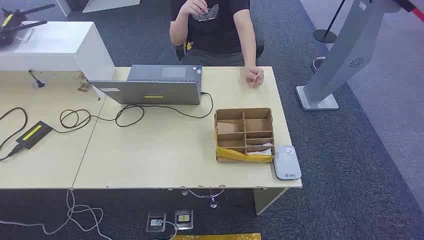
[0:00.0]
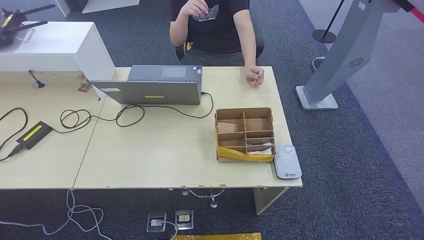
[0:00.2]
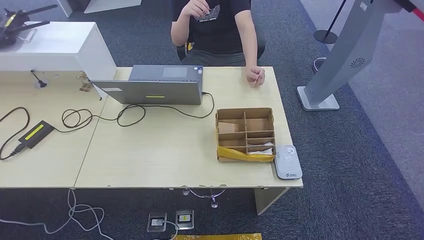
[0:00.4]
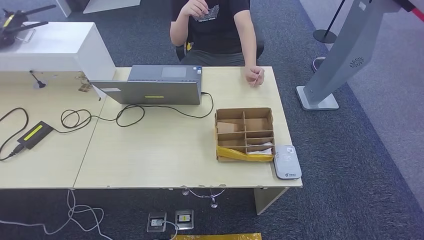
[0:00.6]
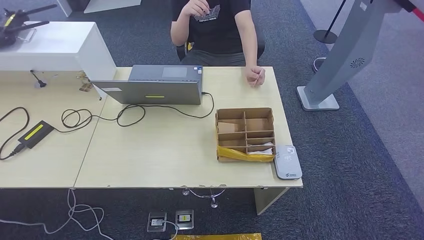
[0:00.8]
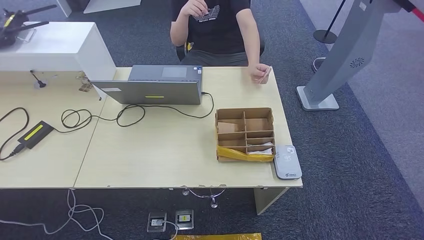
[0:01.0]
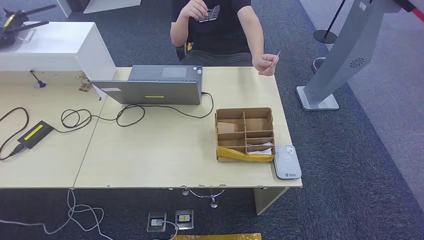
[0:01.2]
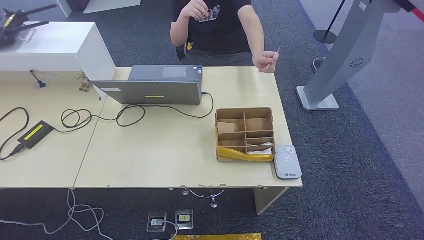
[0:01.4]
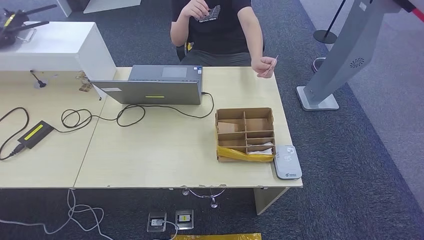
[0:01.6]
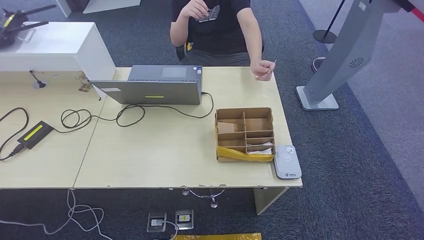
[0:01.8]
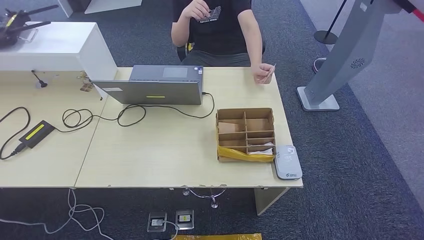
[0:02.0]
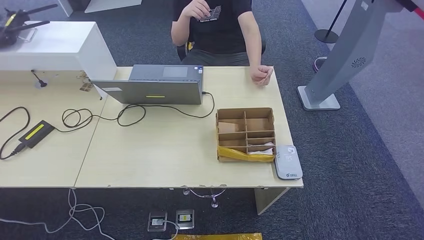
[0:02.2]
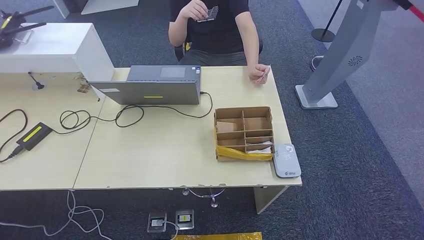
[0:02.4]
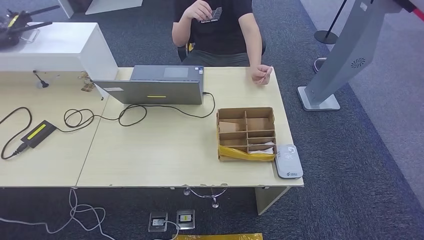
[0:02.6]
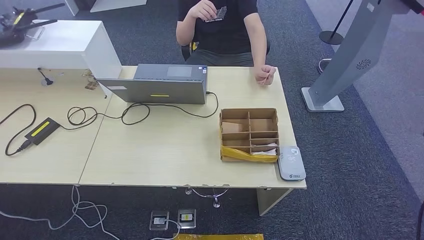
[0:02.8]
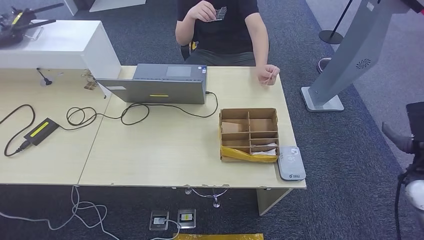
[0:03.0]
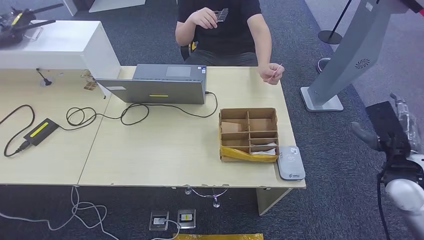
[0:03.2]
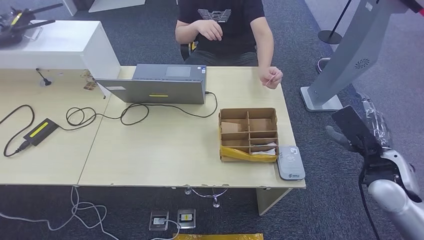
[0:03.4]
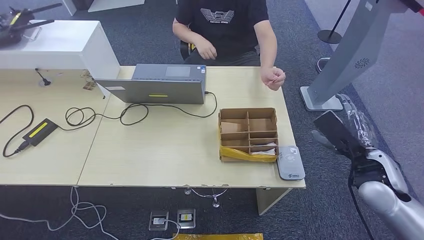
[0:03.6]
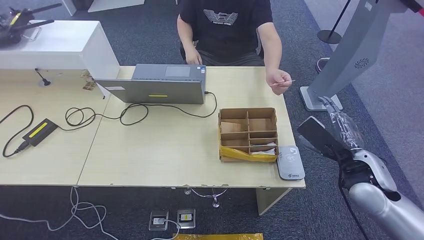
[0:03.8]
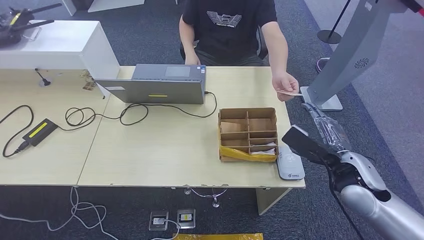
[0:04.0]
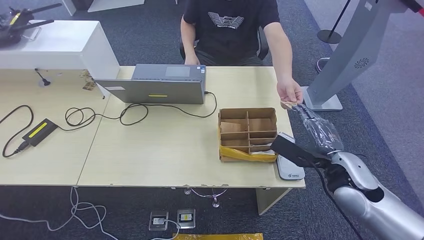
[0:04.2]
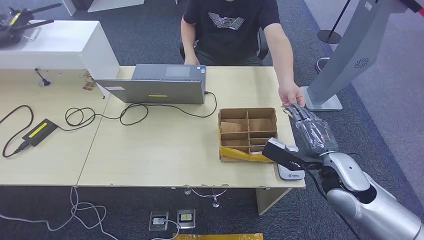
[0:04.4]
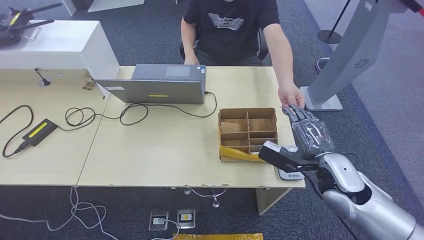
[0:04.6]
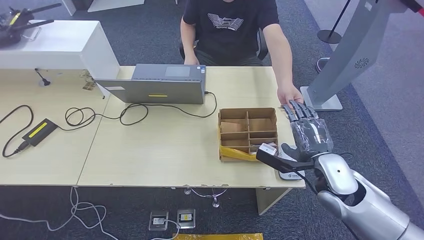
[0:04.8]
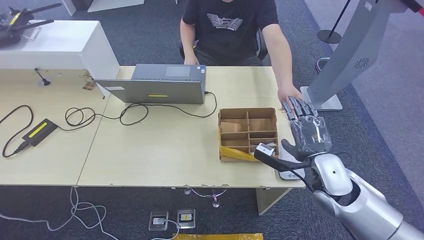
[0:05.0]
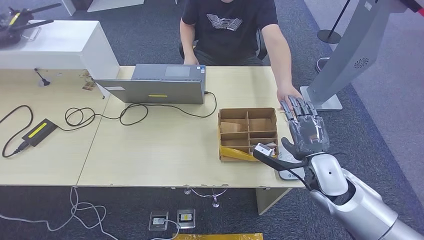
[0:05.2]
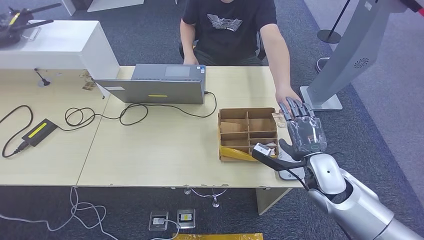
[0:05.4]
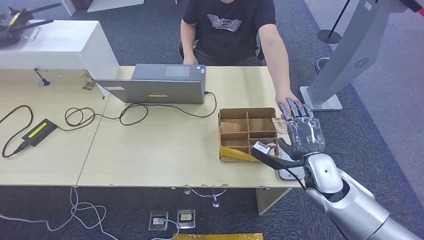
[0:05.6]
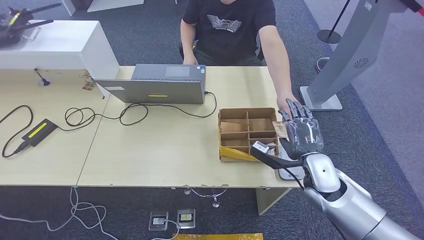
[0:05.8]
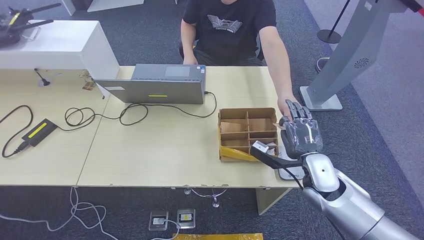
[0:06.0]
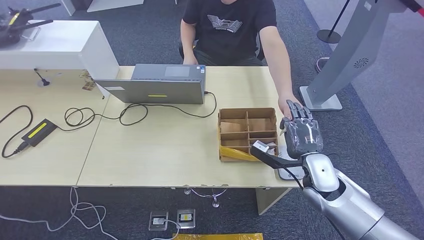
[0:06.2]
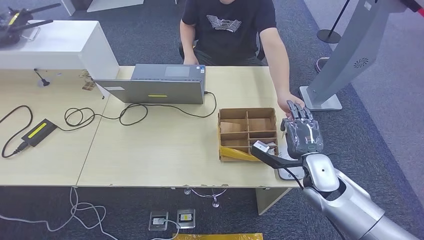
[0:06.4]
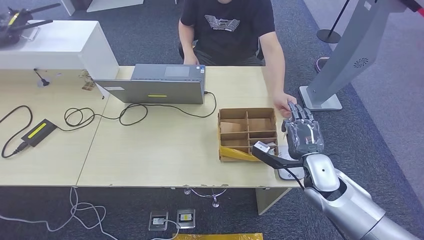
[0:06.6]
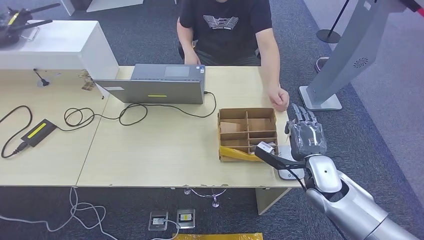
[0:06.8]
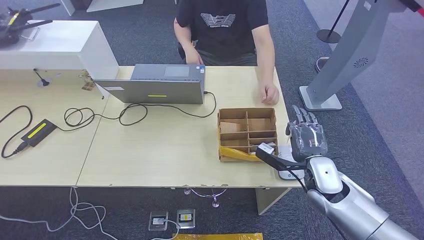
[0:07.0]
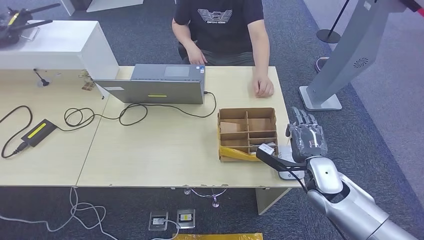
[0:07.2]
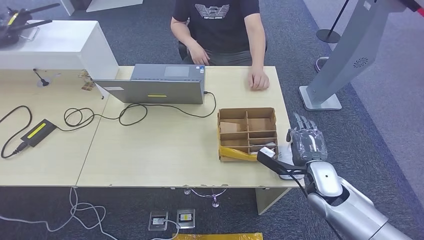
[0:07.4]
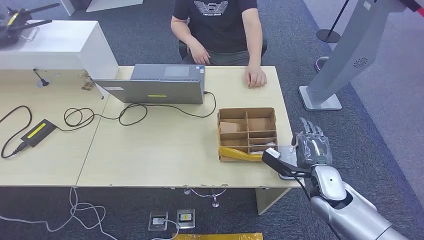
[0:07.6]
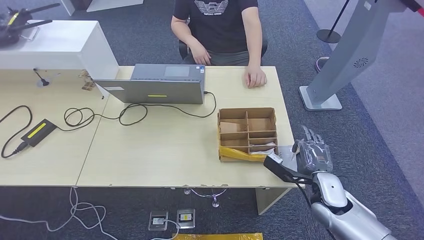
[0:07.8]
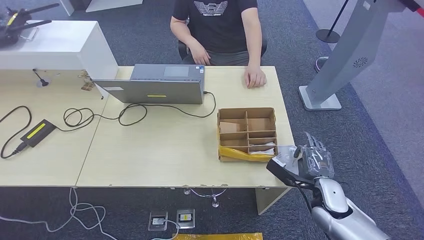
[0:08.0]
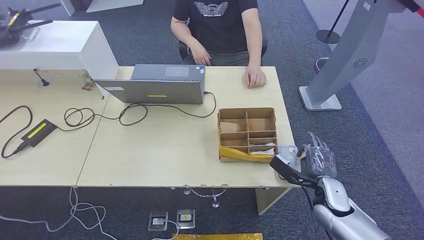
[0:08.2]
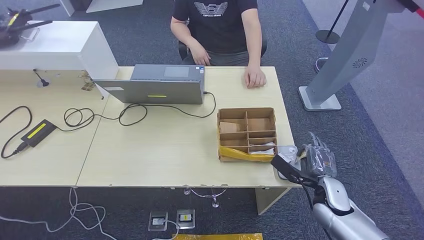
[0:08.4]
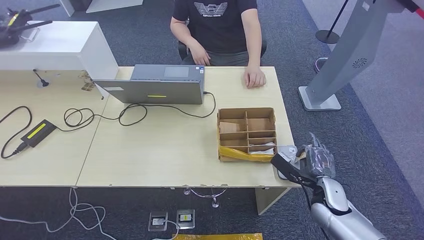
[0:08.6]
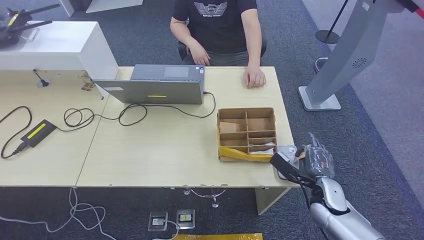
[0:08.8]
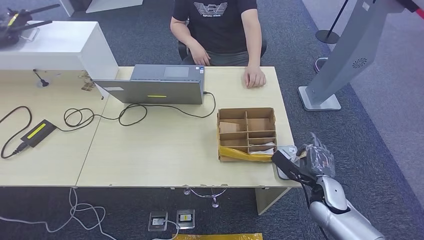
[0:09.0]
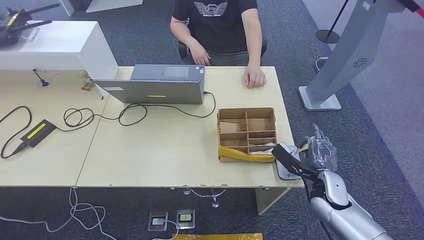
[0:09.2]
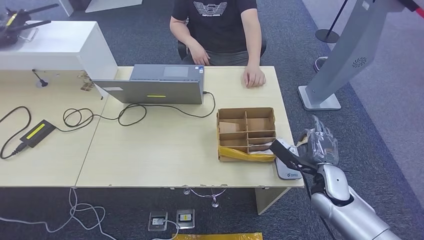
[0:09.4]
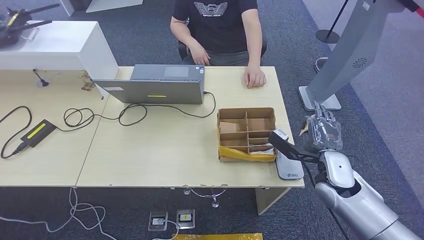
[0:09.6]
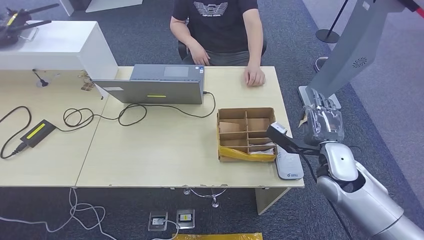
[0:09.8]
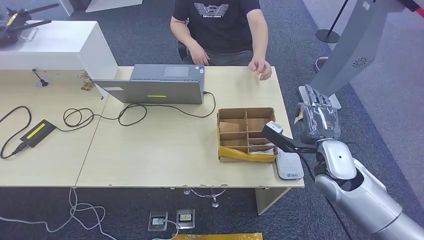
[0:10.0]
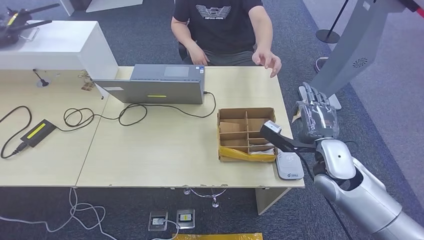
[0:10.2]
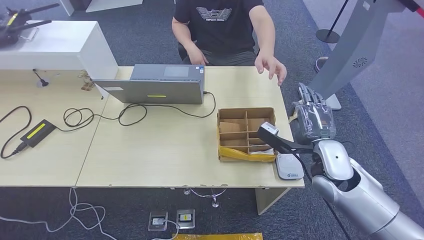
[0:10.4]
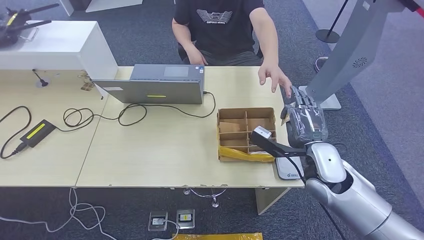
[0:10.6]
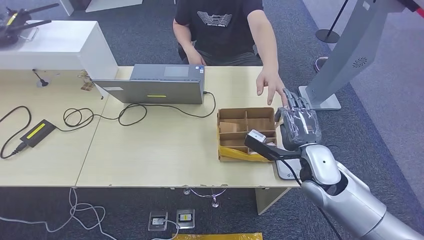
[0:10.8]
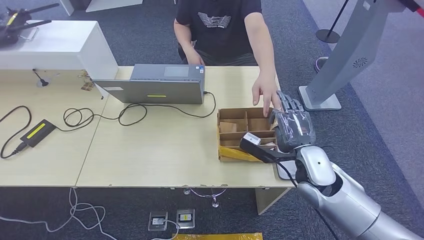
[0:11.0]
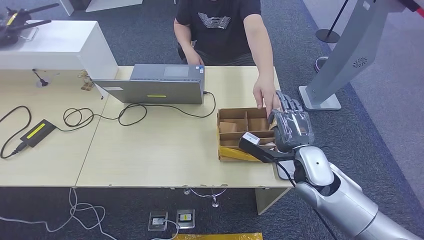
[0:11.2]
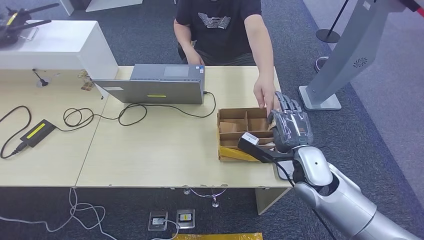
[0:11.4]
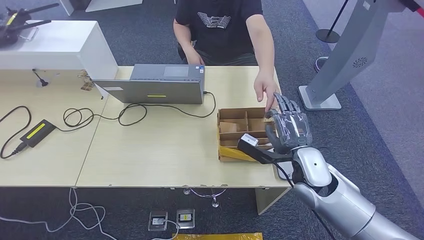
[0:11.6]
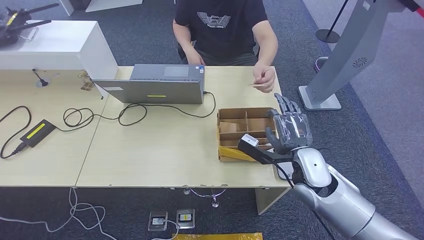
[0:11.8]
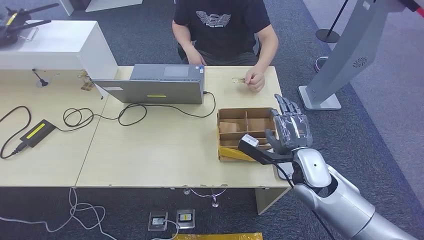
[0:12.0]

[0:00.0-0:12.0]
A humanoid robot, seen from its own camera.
Step, 0:00.0 to 0:06.8: Take the ID card from the person's hand.
Step, 0:07.0 to 0:09.0: Place the ID card on the card reader.
Step, 0:09.2 to 0:11.8: Hand the ID card to the person.
0:01.6 to 0:03.0: The right hand travels upward and forward by about 35 cm.
0:03.0 to 0:04.4: The right hand travels to the left by about 20 cm.
0:04.4 to 0:06.0: The right hand travels downward by about 5 cm.
0:06.0 to 0:07.6: The hands move only a little.
0:07.6 to 0:09.0: The right hand ends up about 5 cm from where it was.
0:09.0 to 0:10.4: The right hand travels upward by approximately 15 cm.
0:10.4 to 0:12.0: The hands make only small movements.

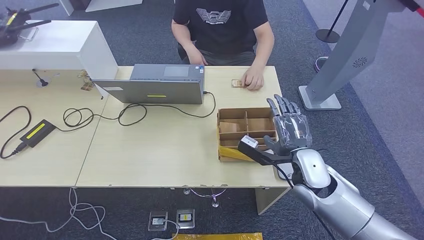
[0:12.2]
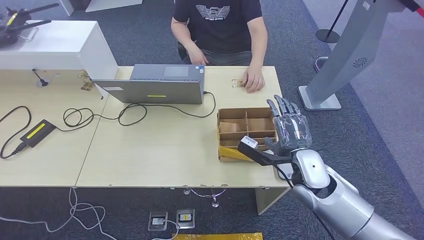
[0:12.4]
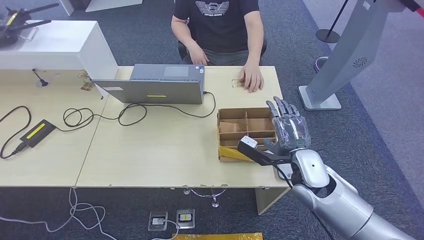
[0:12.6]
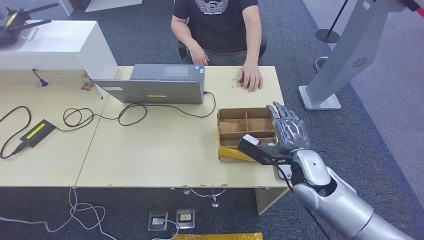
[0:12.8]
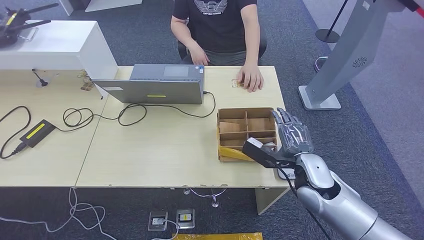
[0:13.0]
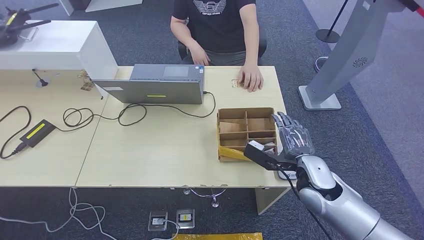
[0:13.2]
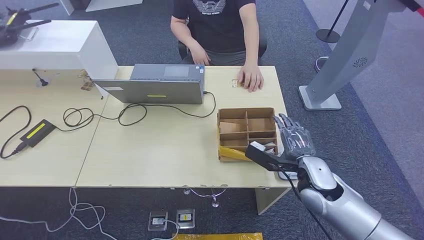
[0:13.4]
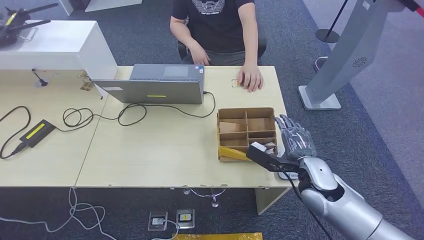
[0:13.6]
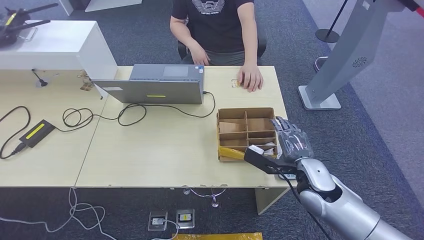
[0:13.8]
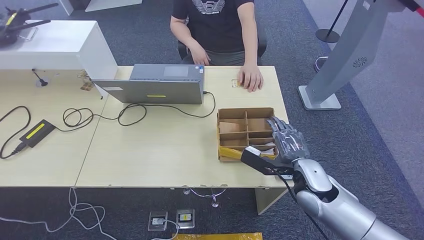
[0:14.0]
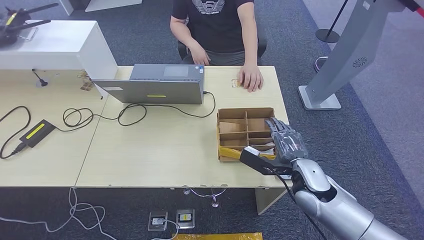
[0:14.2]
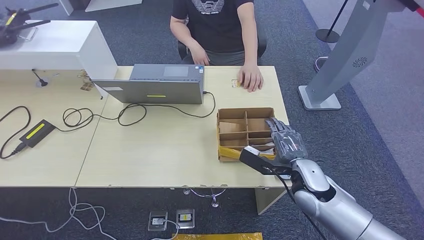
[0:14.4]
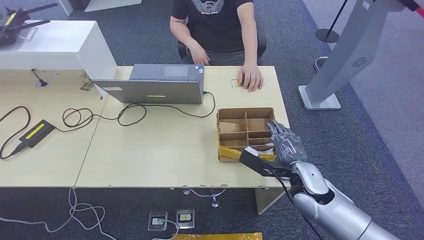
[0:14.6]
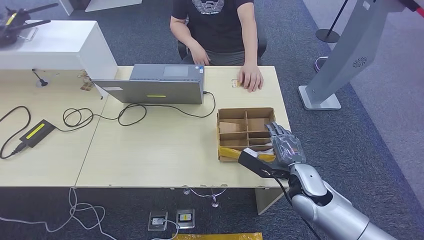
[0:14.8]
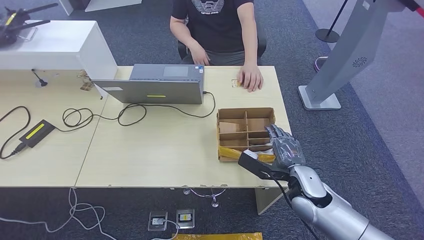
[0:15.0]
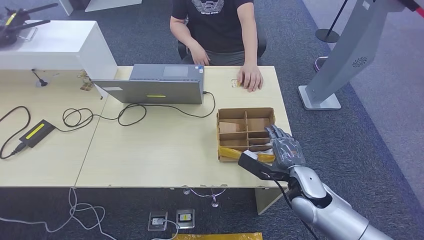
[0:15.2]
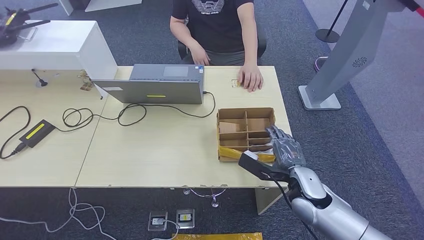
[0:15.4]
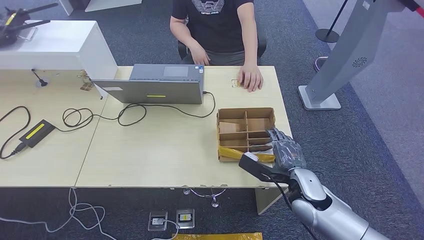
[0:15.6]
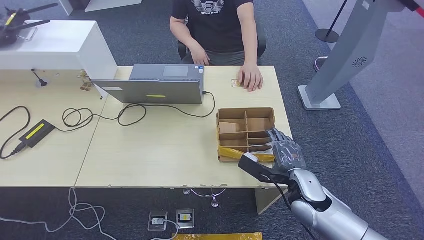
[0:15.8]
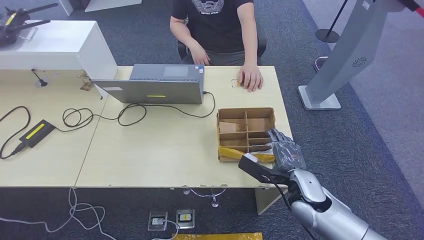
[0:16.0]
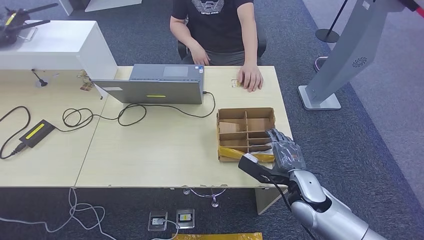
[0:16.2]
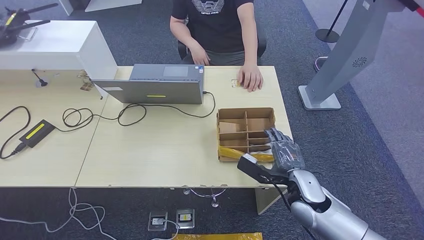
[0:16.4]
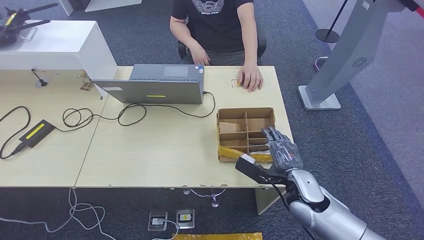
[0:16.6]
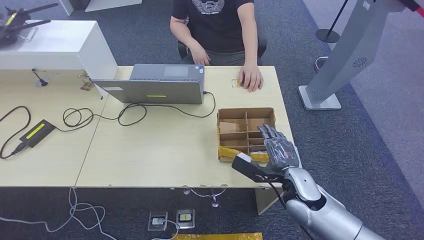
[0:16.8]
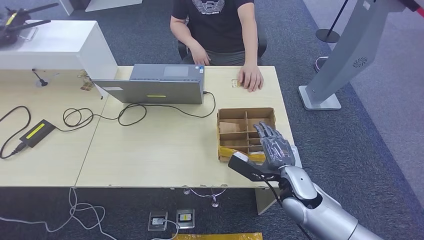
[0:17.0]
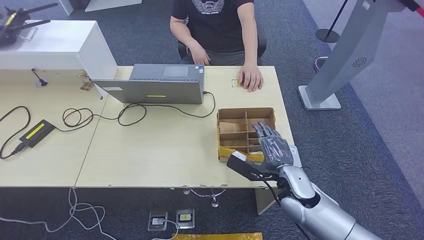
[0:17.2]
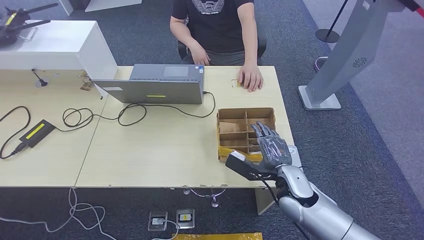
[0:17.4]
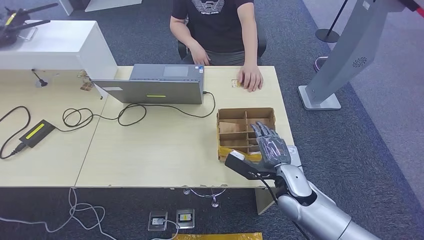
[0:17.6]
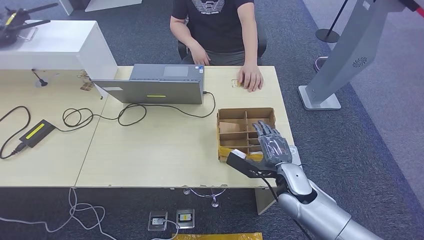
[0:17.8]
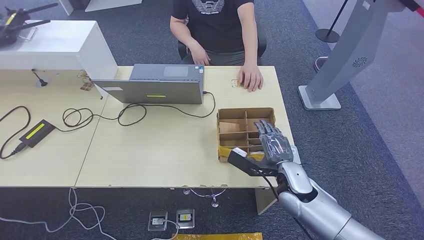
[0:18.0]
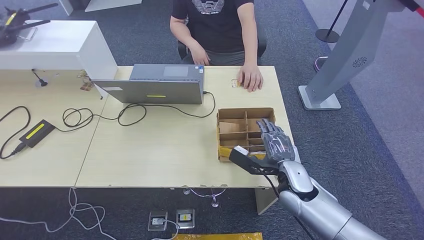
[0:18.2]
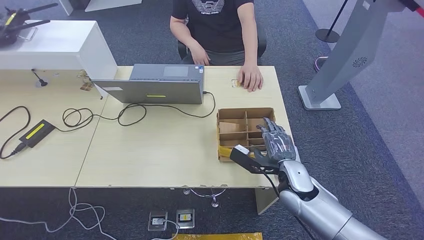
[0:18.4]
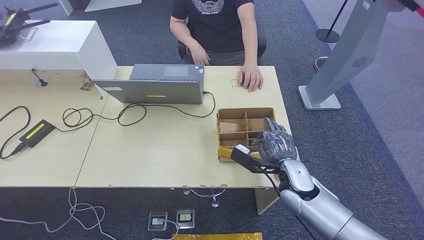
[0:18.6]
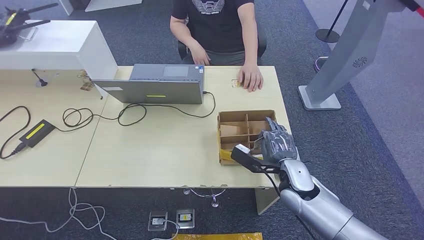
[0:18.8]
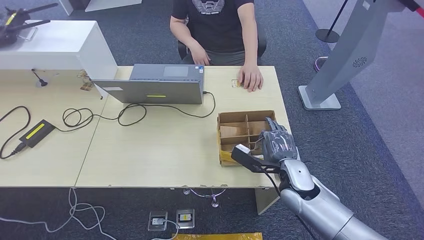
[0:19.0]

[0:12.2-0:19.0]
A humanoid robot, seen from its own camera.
0:12.2 to 0:13.6: The hands move only a little.
0:13.6 to 0:15.0: The hands stay close to where they were, moving slightly.
0:15.0 to 0:16.2: Both hands stay about where they are.
0:16.2 to 0:19.0: The hands make only small movements.
